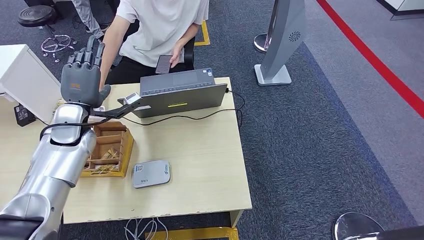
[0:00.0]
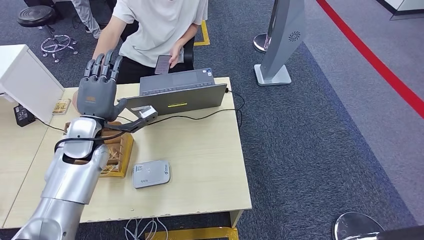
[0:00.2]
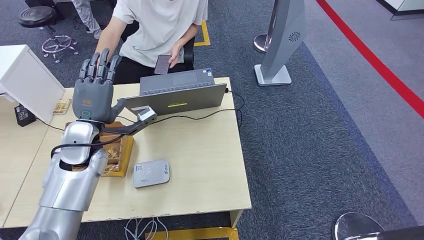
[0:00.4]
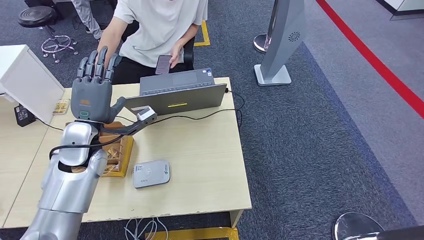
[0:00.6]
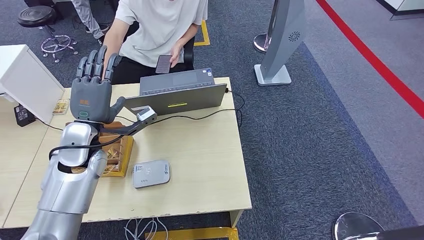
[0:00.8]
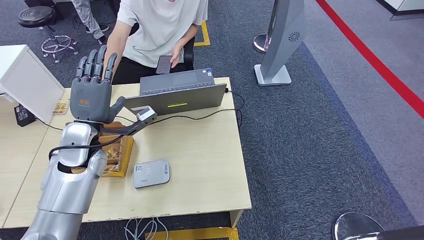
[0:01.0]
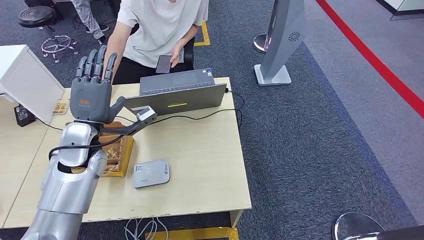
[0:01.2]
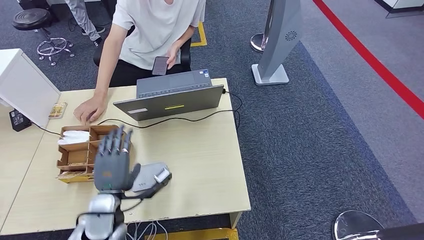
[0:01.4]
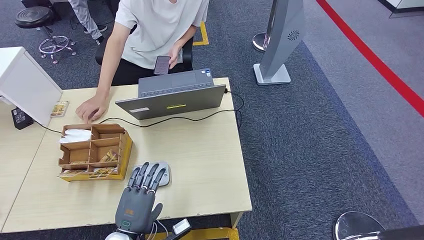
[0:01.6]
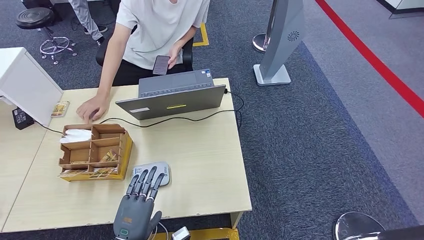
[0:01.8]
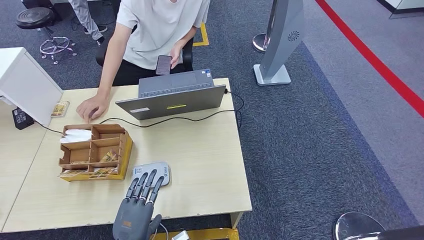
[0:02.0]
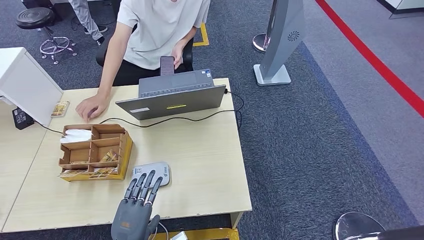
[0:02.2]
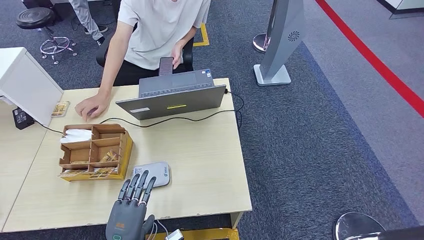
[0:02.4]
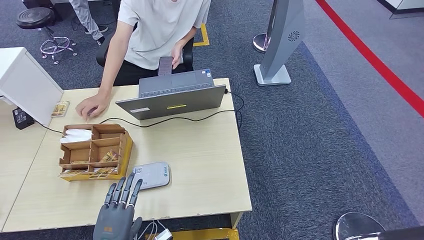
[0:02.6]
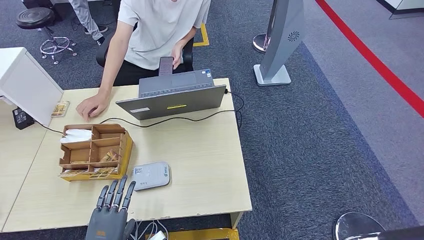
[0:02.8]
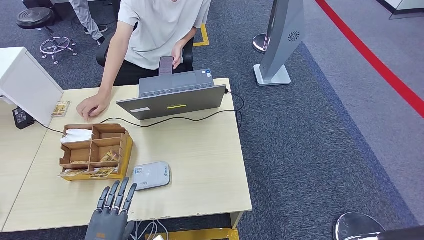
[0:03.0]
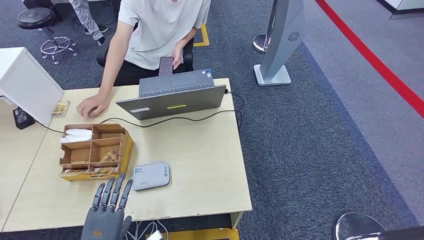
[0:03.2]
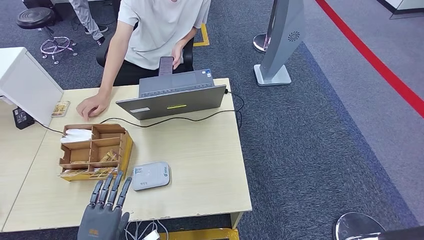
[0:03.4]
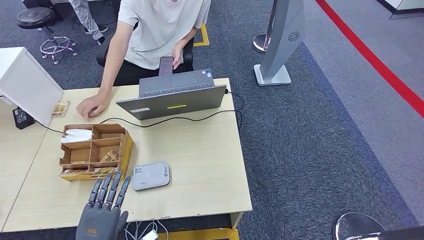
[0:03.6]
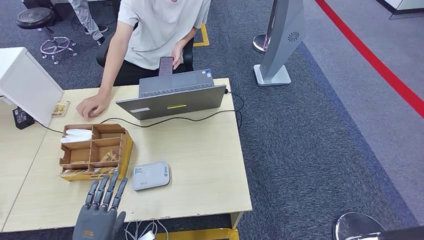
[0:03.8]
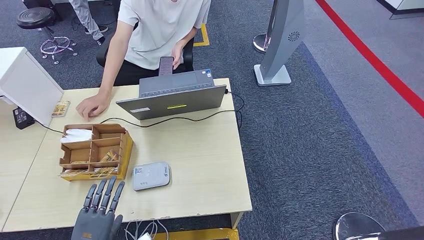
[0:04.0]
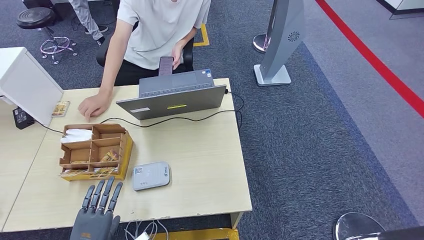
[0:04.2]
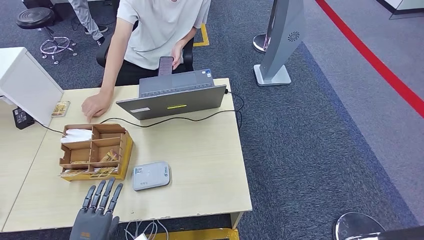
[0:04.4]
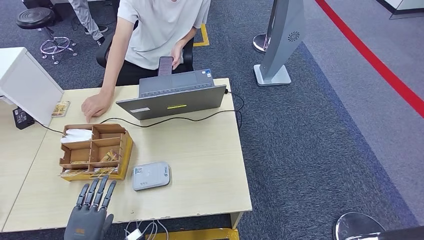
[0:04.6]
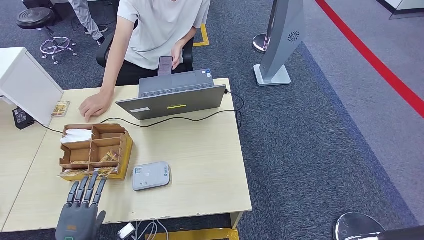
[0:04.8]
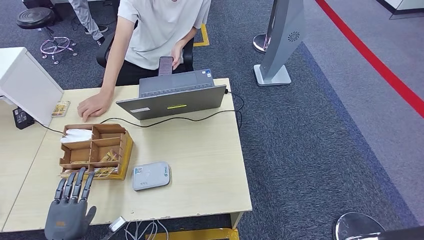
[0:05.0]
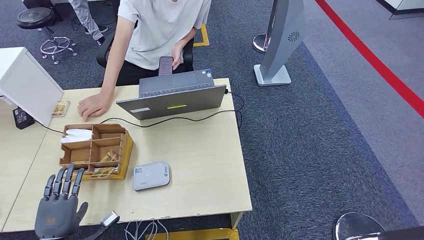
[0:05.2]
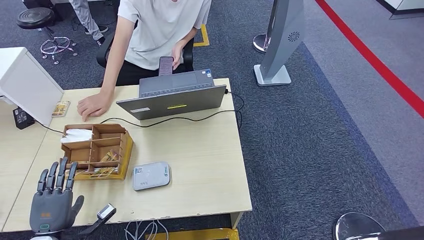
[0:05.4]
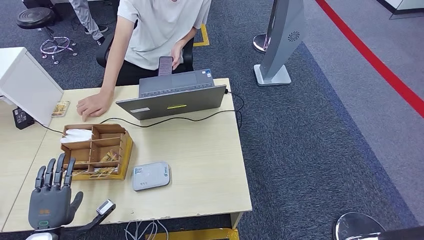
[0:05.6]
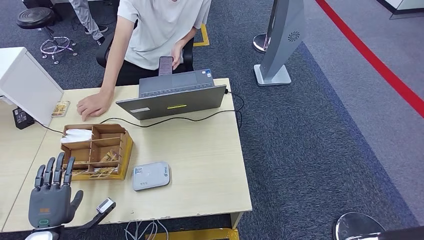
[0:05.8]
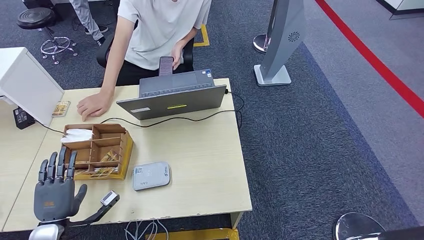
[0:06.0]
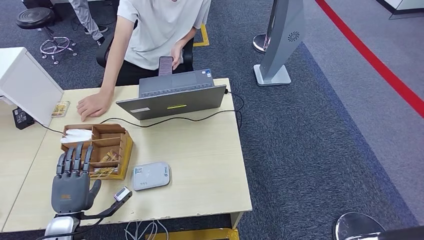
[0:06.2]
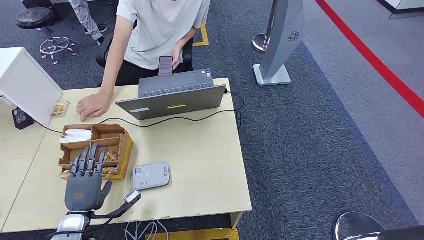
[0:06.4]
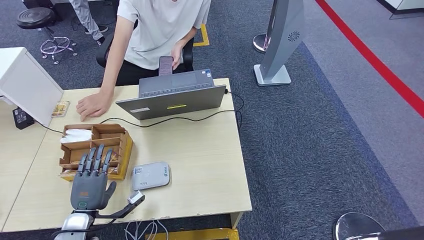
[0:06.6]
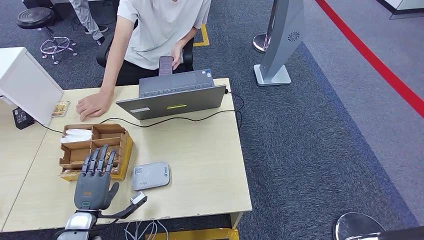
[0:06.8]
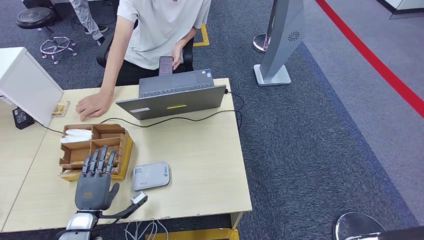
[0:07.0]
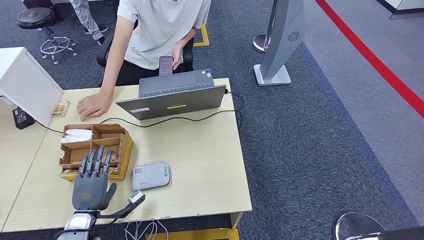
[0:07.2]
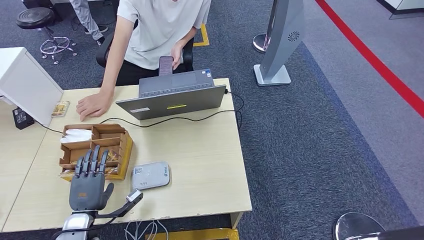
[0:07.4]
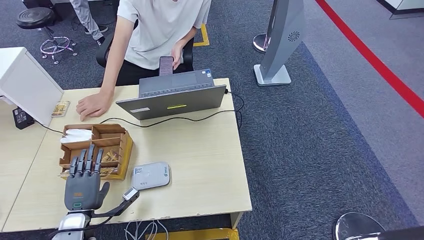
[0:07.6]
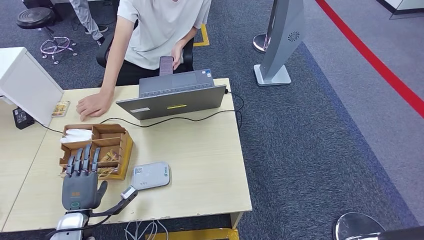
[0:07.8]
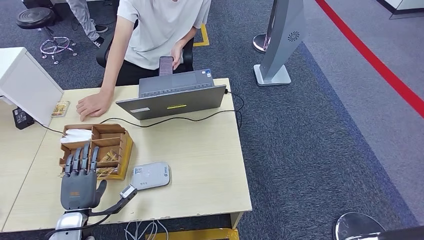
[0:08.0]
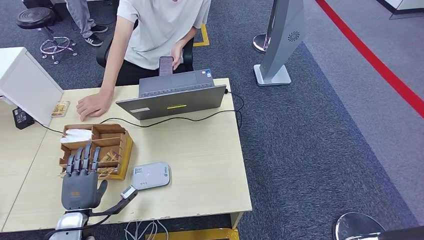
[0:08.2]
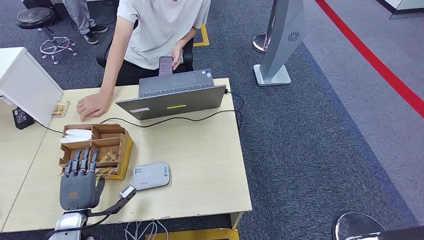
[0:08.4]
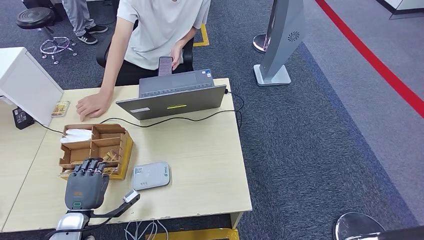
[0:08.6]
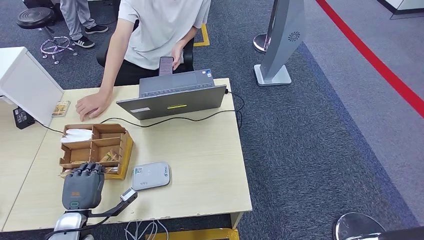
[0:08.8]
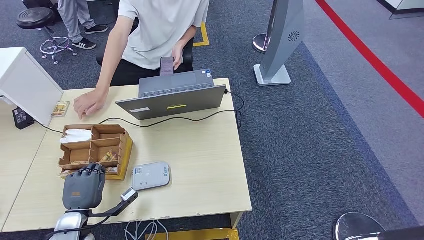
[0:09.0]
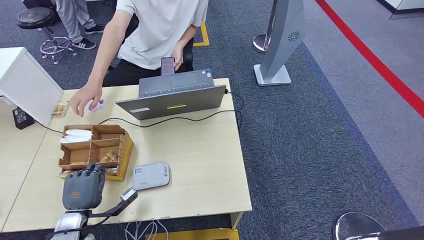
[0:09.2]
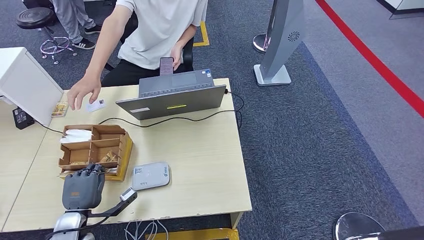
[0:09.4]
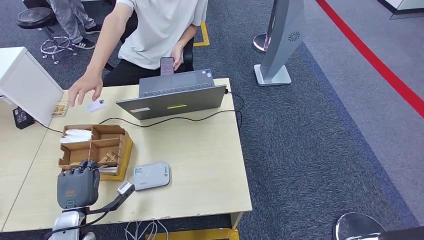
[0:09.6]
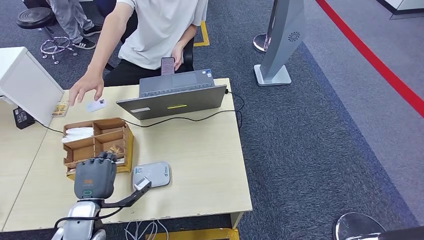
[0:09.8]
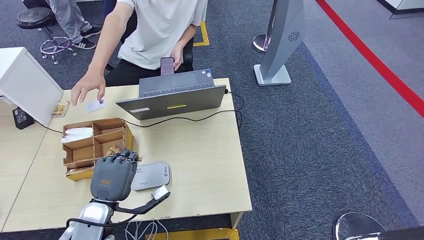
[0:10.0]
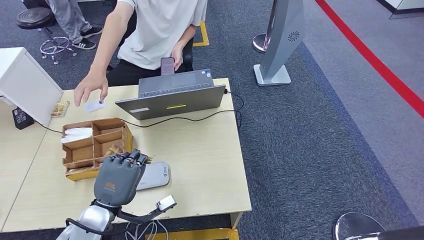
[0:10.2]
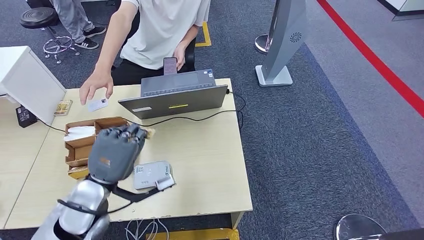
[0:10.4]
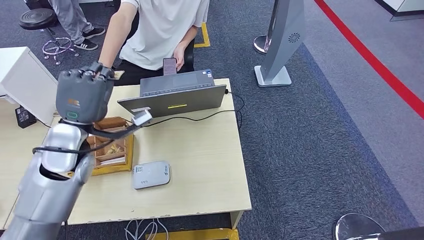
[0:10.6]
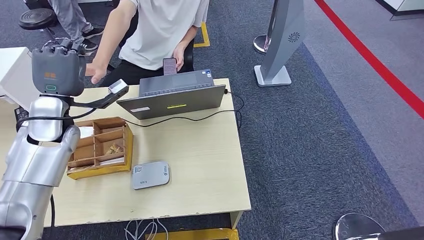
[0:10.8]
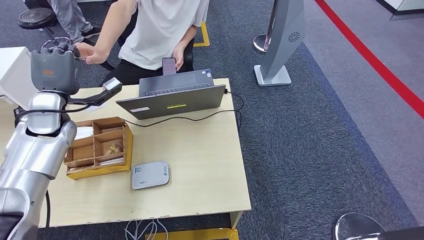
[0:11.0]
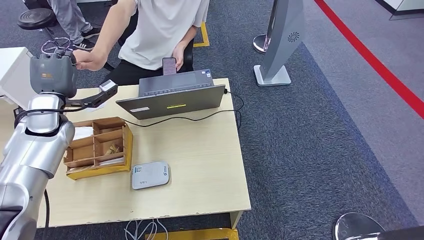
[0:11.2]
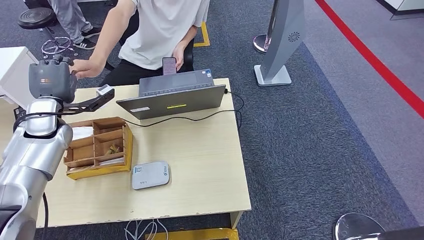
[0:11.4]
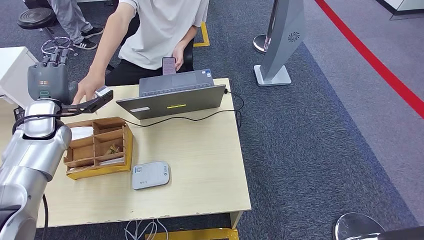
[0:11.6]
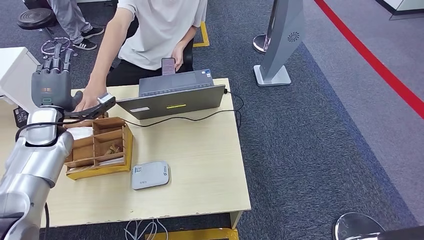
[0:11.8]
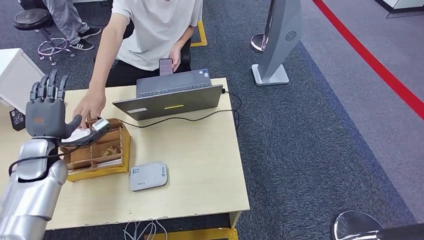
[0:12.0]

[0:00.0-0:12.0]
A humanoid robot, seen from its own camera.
Step, 0:00.0 to 0:02.6: Hand the ID card to the person.
Step, 0:02.8 to 0:10.6: Pick up the room key from the key card box.
0:00.0 to 0:01.6: The left hand moves backward and downward, roughly 30 cm.
0:01.6 to 0:03.0: The left hand shifts about 5 cm to the left.
0:03.0 to 0:04.4: The left hand travels to the left by approximately 5 cm.
0:04.4 to 0:06.0: The left hand moves forward, some 10 cm.
0:06.0 to 0:07.6: The left hand shifts by approximately 5 cm.
0:07.6 to 0:09.0: Neither hand changes place.
0:09.0 to 0:10.4: The left hand shifts roughly 20 cm upward and to the right.

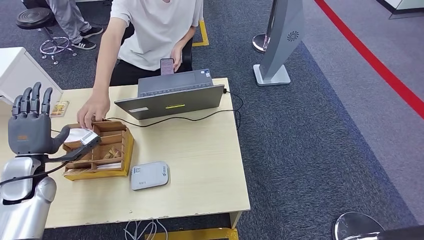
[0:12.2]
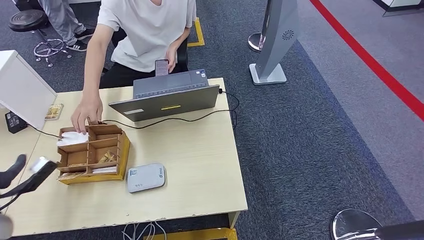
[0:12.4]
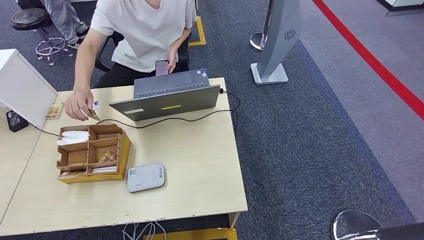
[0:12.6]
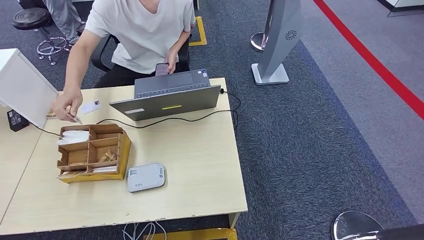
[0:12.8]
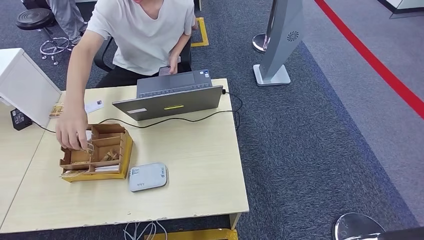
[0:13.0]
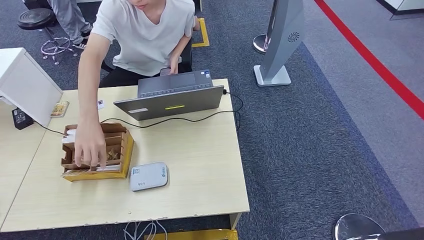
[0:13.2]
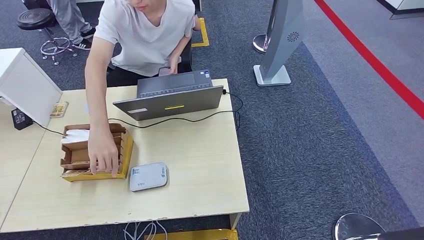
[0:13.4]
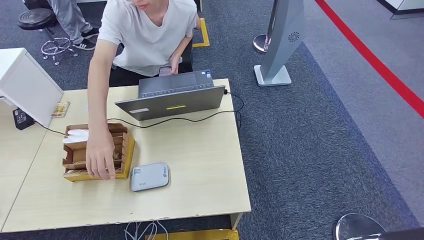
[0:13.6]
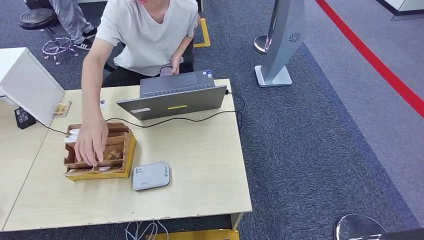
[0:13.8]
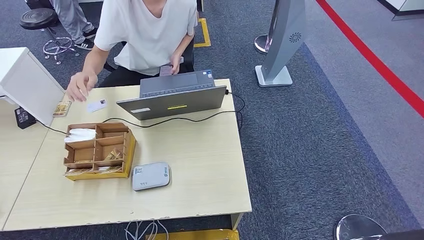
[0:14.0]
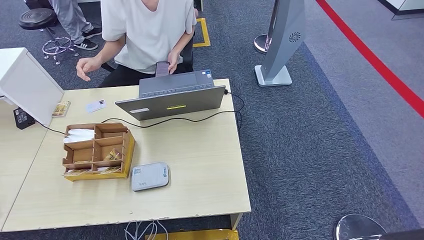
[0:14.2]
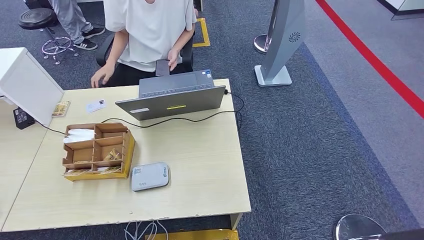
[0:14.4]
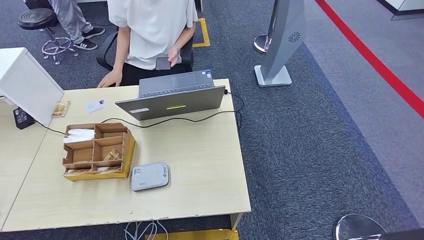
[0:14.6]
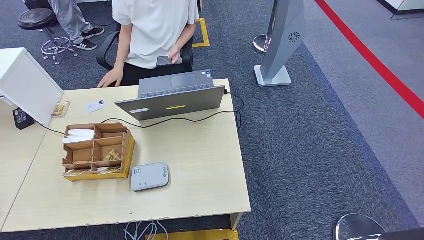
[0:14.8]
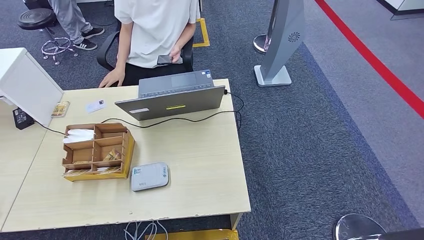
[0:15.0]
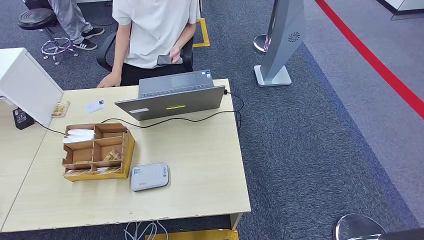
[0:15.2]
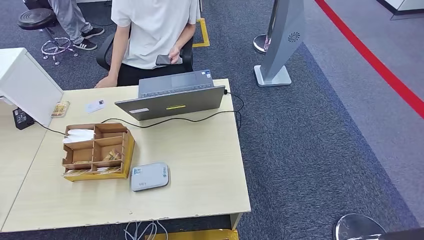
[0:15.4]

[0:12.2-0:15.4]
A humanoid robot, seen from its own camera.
Step, 0:12.2 to 0:15.2: Hand the room key to the person.
0:13.8 to 0:15.4: Both hands travel together to the right, about 5 cm.
